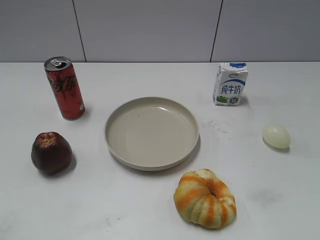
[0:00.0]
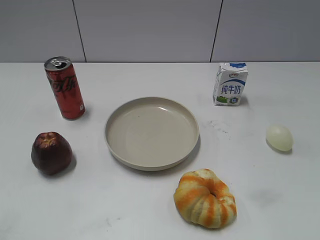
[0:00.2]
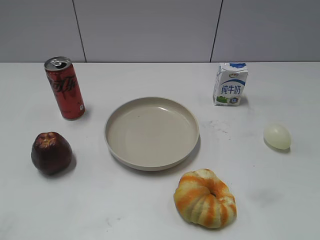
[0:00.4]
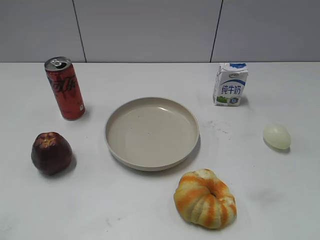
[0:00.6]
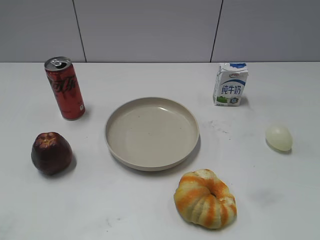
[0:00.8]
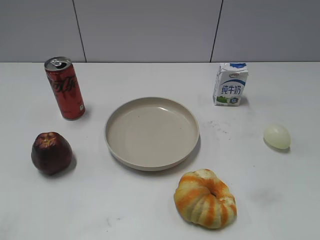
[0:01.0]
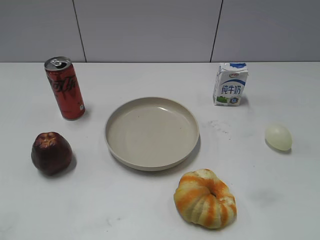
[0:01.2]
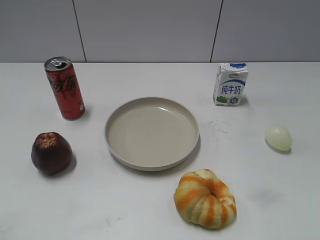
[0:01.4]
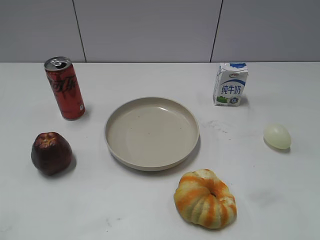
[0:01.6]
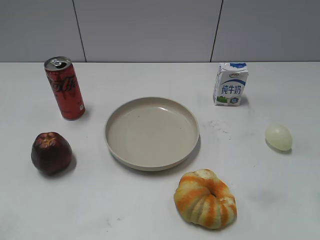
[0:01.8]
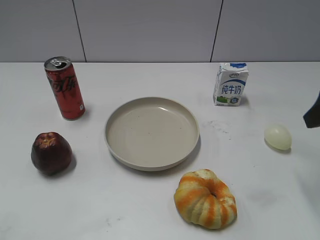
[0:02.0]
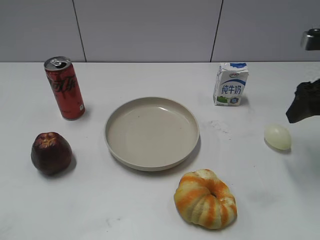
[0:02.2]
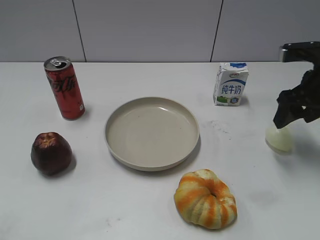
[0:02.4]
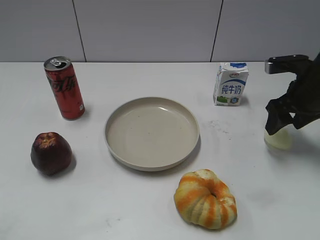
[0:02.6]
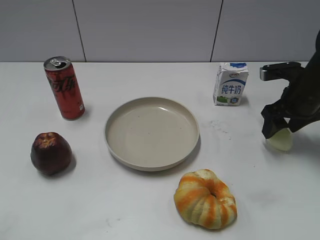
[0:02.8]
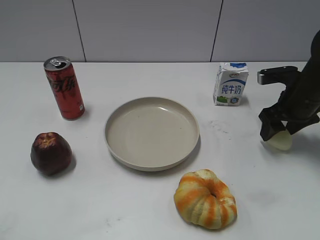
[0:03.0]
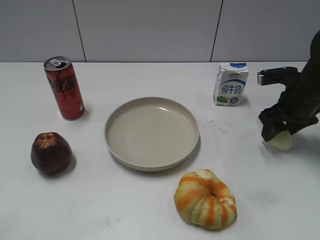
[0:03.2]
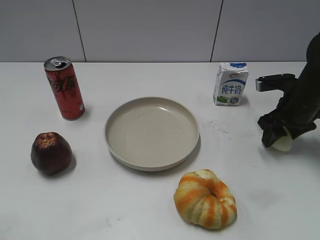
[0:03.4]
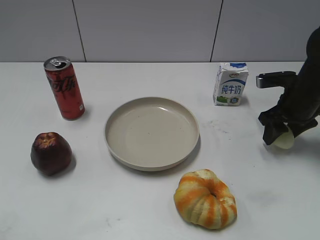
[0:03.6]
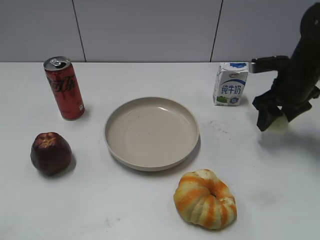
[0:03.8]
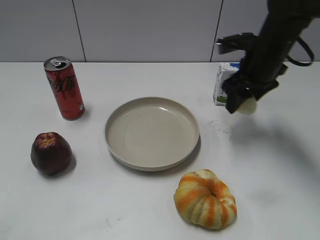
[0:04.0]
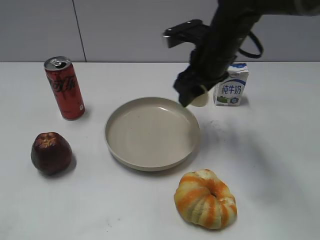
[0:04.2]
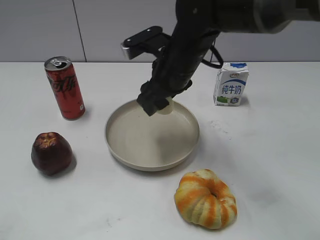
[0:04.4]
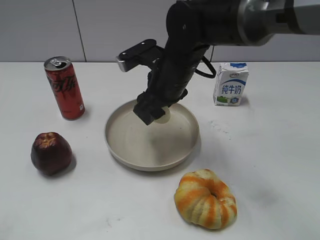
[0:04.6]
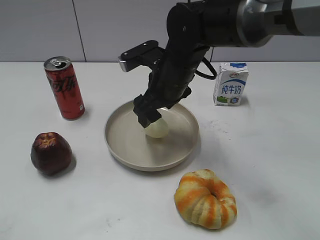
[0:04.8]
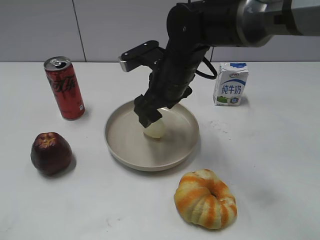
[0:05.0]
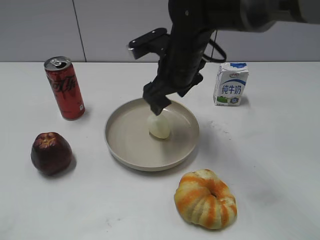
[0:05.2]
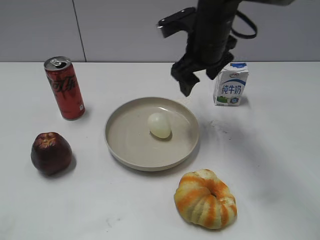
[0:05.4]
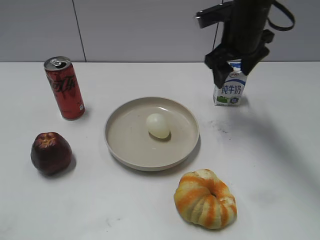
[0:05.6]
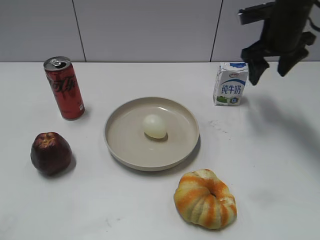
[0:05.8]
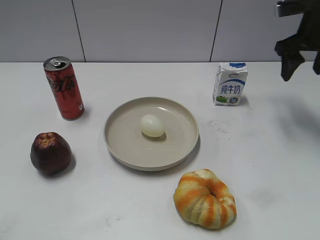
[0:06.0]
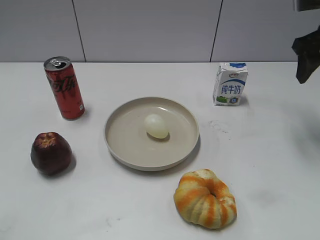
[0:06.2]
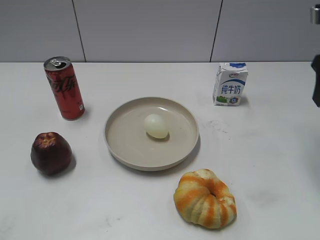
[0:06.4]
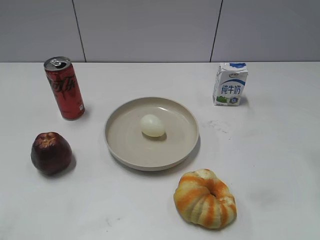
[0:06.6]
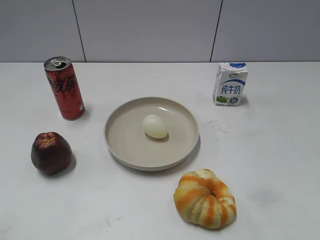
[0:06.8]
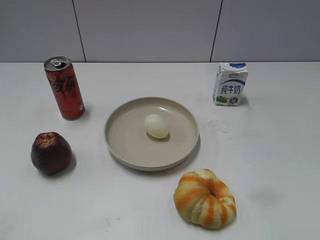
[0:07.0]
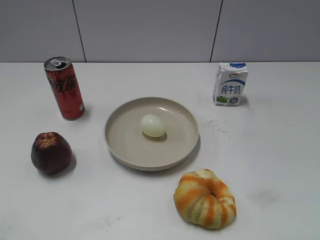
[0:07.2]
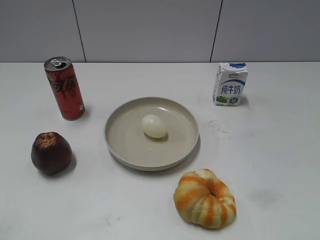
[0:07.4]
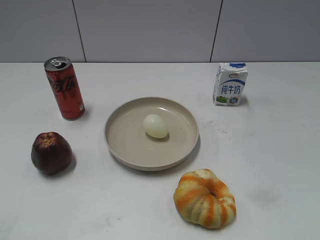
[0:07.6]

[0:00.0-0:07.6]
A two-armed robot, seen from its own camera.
Step, 0:01.0 to 0:03.2: Grasp the egg with right gripper.
Step, 0:03.4 to 0:05.2: Place the egg on the plate with right gripper.
0:01.6 to 0:03.0: The right gripper shifts roughly 30 cm forward and downward.
0:03.0 to 0:04.6: The right gripper goes about 25 cm to the left, and closes up.
0:04.6 to 0:06.0: The right gripper goes approximately 25 cm to the right, and opens its fingers.
0:06.0 to 0:07.6: The right gripper heads backward, covering approximately 40 cm.
